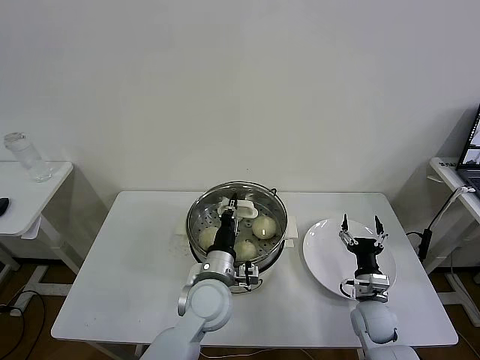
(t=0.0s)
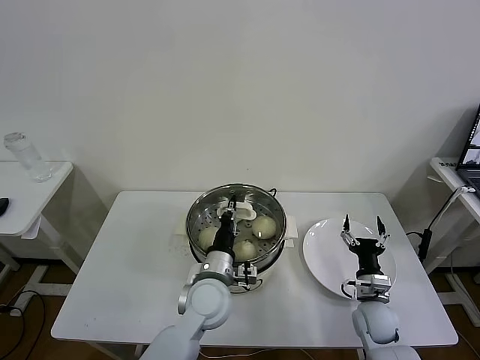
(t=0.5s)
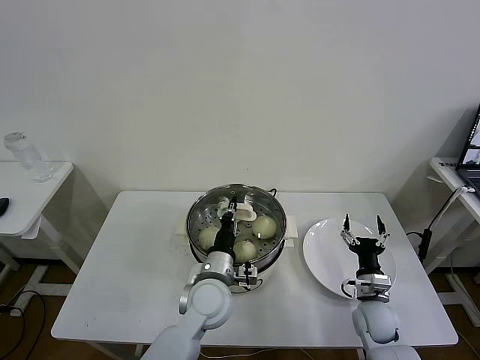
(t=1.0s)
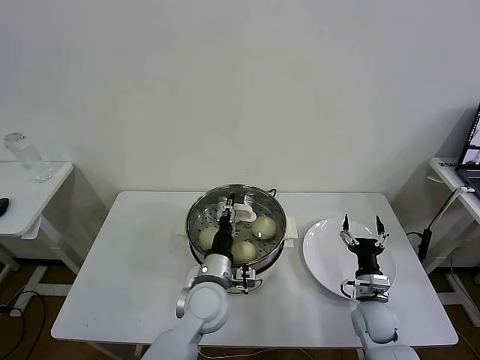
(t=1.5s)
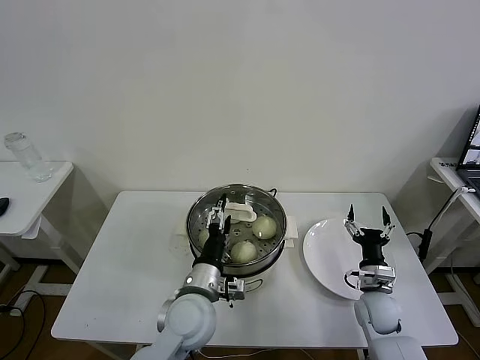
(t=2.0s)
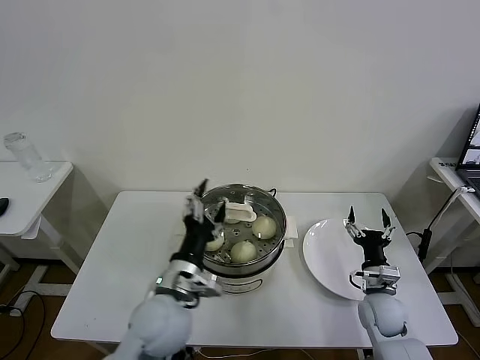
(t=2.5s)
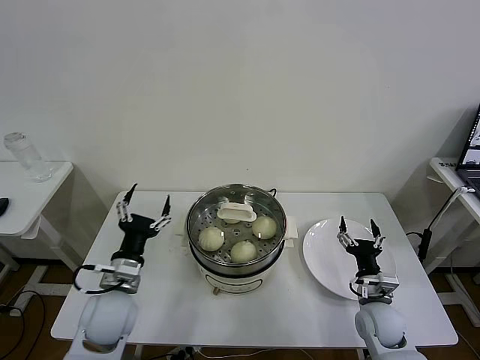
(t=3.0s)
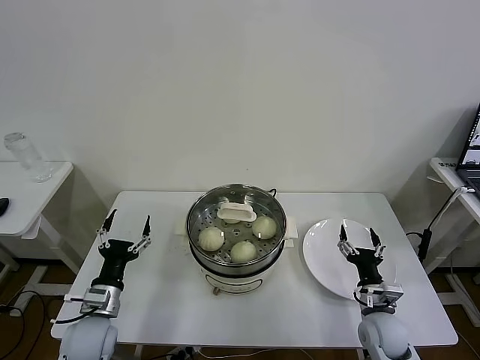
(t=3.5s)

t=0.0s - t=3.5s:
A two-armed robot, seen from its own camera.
Task of the whole recording: take steamed baozi put them in steamer then cover it.
t=0.0s - t=2.0s: The left gripper opens.
t=2.0s - t=3.5s: The left gripper moves to the left, about 20 cm.
